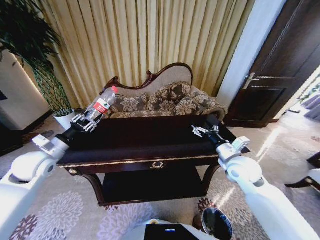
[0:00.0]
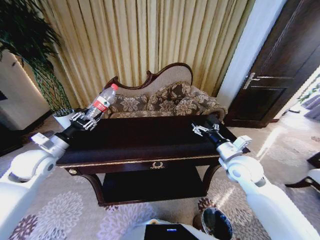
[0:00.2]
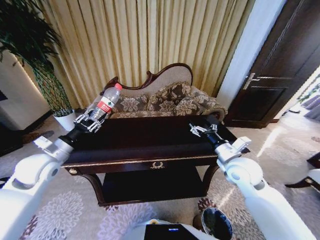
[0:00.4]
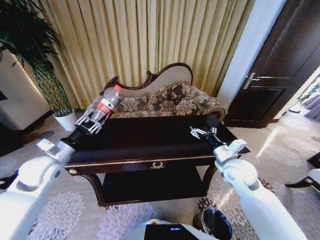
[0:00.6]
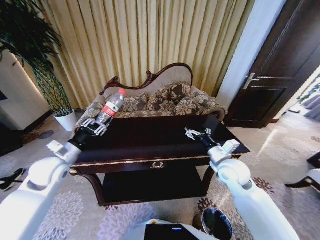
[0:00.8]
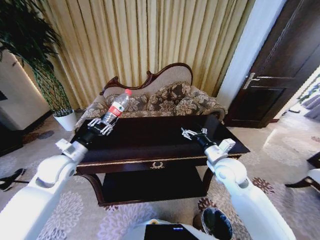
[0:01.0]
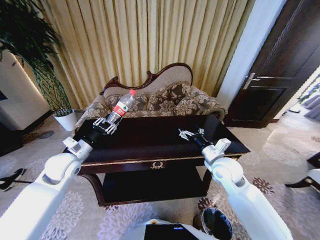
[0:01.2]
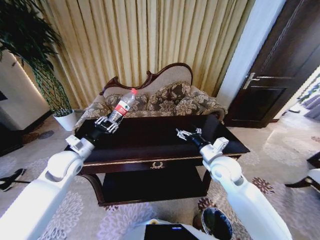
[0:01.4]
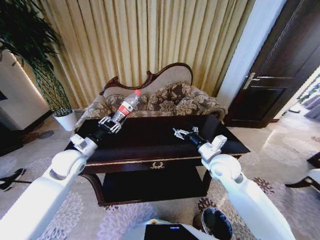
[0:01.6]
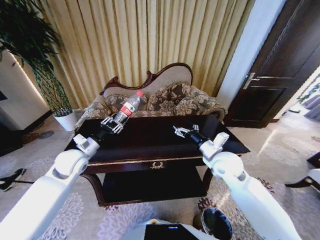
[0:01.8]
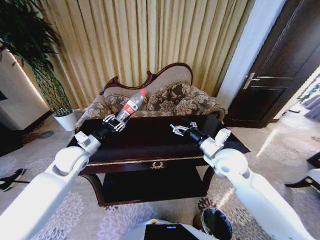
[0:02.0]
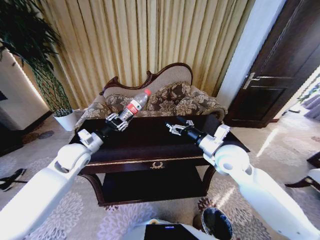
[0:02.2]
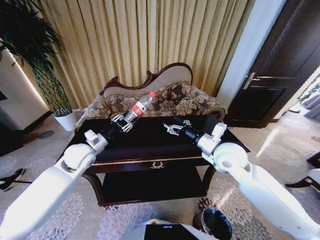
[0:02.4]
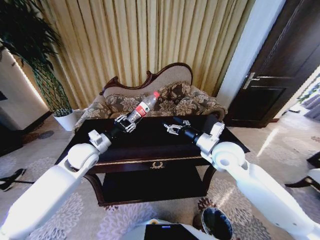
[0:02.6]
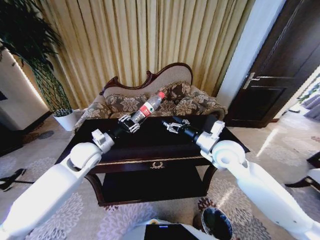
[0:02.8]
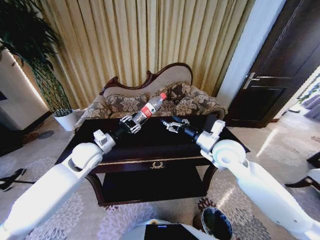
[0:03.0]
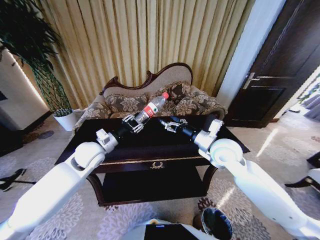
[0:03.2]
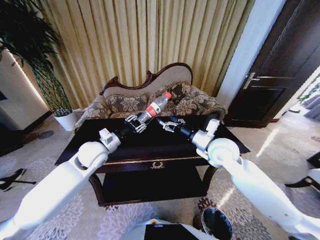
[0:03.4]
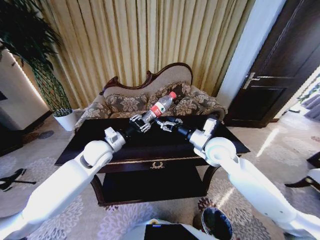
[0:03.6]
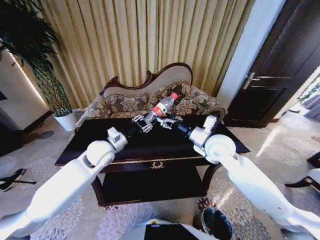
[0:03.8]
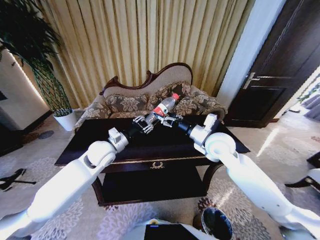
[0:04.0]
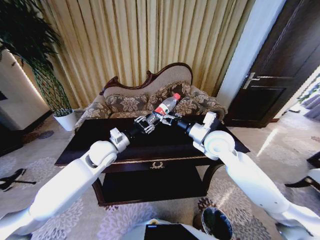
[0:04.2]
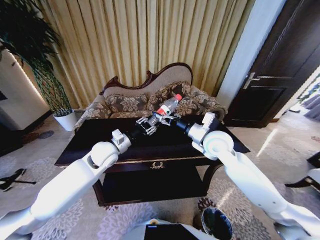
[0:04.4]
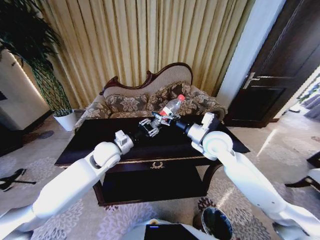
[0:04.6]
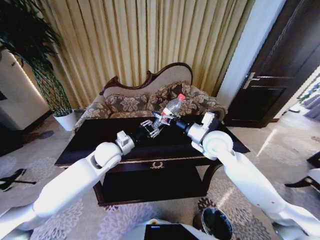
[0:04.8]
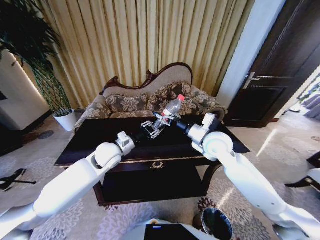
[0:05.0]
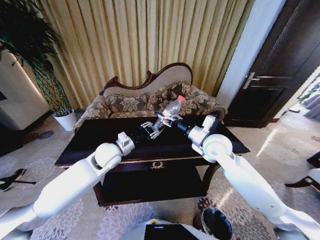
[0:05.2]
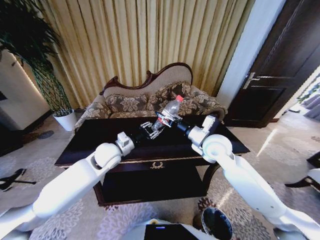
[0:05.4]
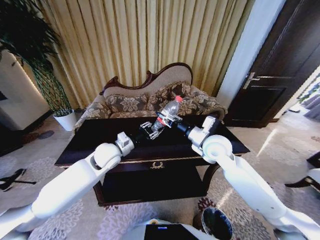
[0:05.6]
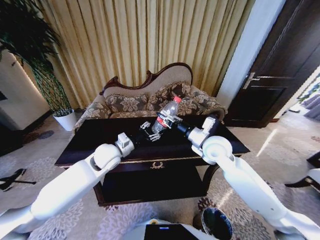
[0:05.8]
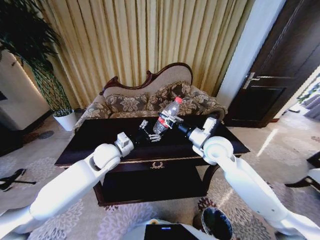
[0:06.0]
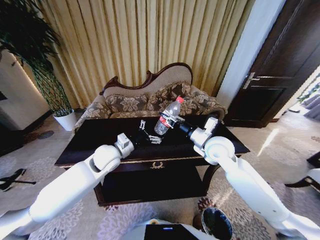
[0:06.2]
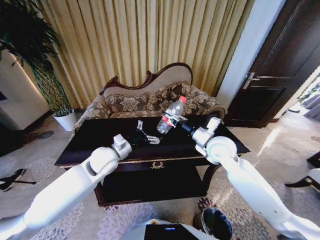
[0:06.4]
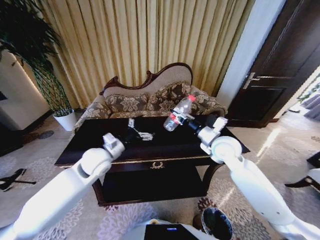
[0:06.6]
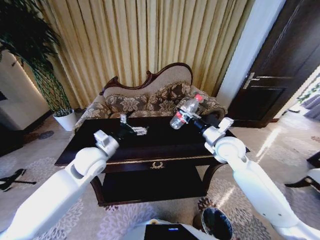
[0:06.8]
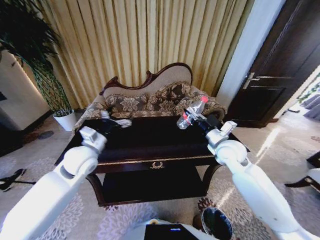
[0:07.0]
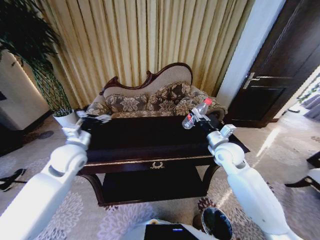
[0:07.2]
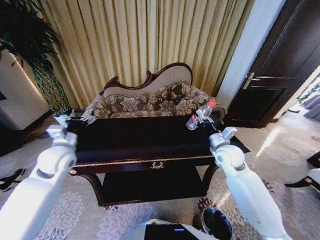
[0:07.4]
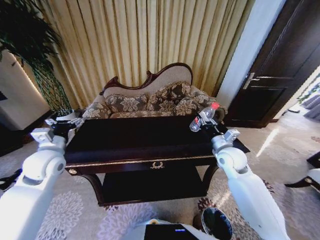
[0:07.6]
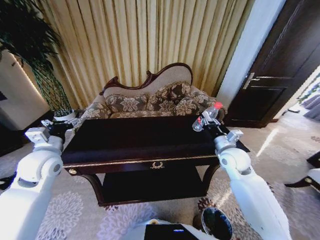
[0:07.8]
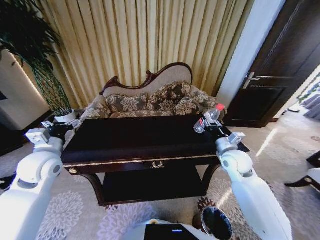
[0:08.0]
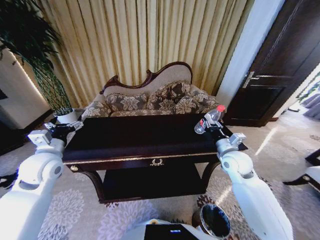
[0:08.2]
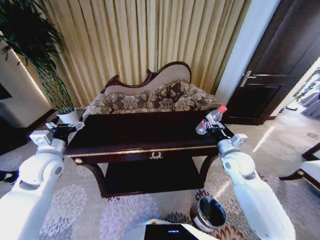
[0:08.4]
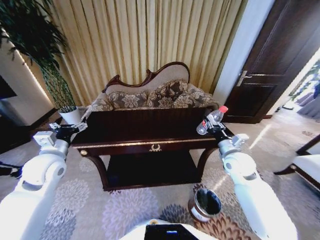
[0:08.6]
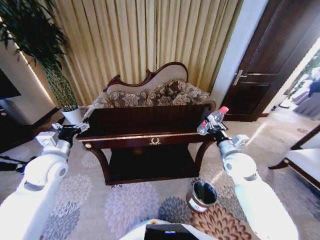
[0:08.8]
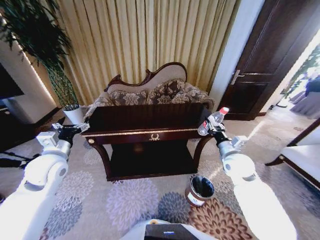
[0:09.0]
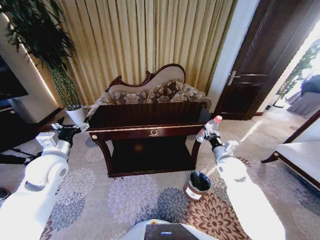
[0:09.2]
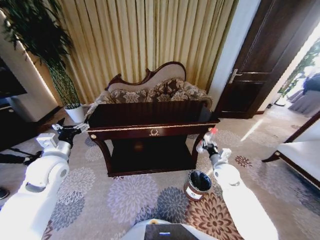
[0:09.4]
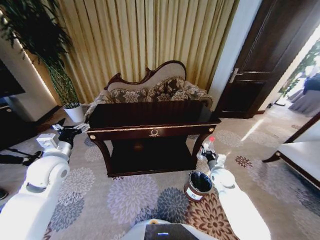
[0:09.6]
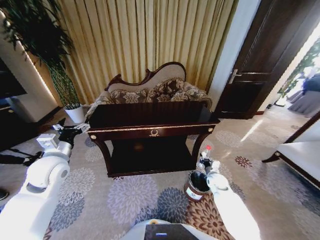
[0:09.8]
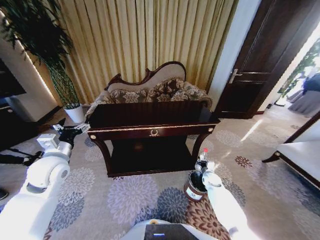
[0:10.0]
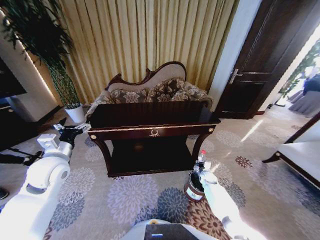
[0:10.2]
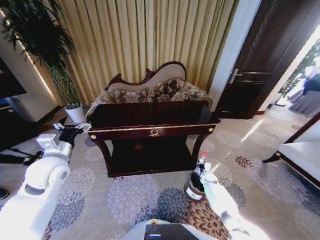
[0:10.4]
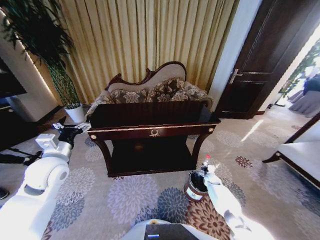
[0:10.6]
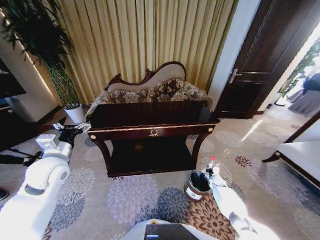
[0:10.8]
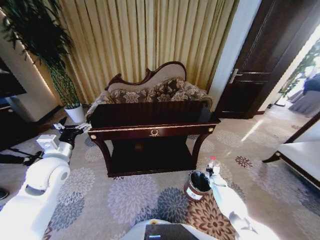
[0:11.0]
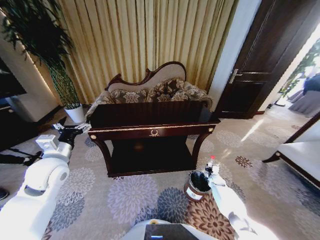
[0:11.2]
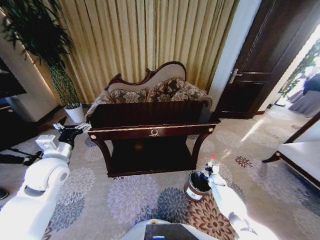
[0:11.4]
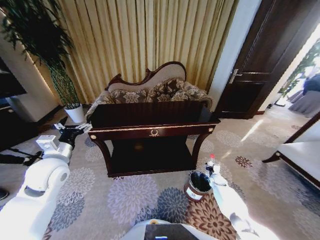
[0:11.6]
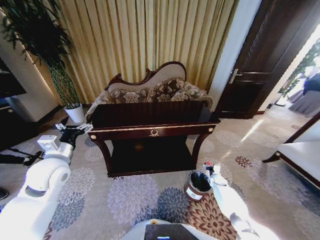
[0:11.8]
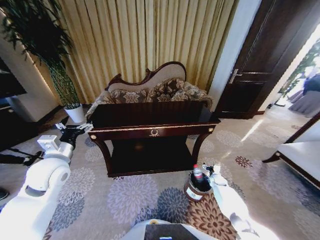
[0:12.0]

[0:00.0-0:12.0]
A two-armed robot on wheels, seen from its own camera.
Task of the whole recording: Move to the front of the table and place the trash on the table into the trash bin.
0:00.0 to 0:01.6: The right gripper travels to the left by some 5 cm, while the left gripper goes some 10 cm to the right.
0:01.6 to 0:03.0: The left gripper goes approximately 5 cm to the right. Meanwhile the right gripper moves upward, roughly 5 cm.
0:03.0 to 0:04.4: The left gripper goes roughly 5 cm to the right.
0:04.4 to 0:06.0: The right gripper closes its fingers, while the left gripper opens.
0:06.0 to 0:07.6: The left gripper goes some 20 cm to the left, while the right gripper travels to the right and downward by about 10 cm.
0:09.0 to 0:10.4: The right gripper moves downward, approximately 30 cm.
0:10.4 to 0:12.0: The right gripper goes roughly 5 cm to the right, and opens its fingers.

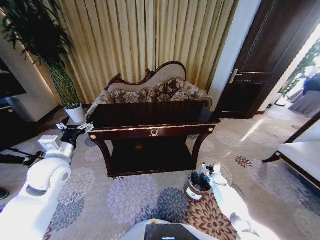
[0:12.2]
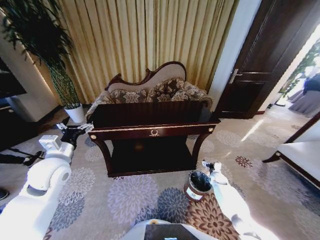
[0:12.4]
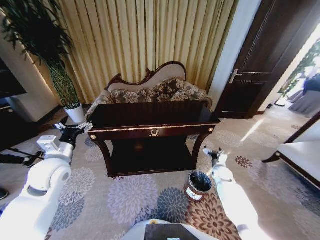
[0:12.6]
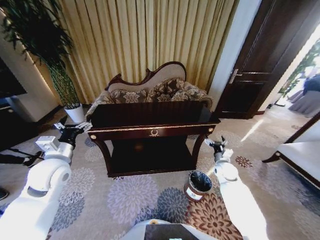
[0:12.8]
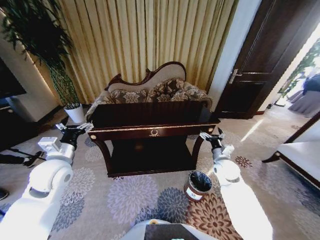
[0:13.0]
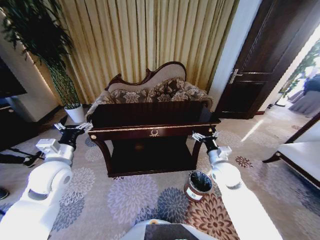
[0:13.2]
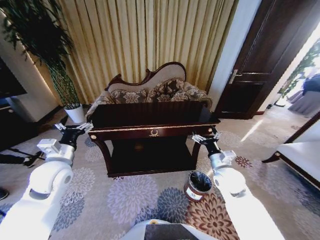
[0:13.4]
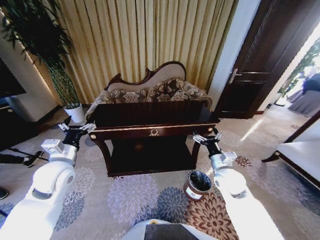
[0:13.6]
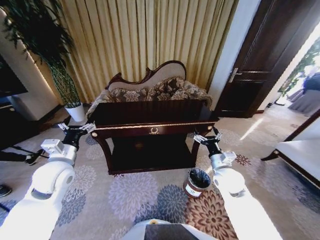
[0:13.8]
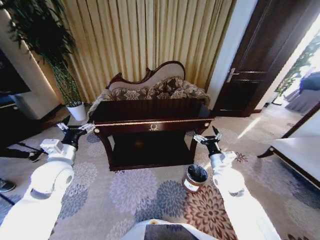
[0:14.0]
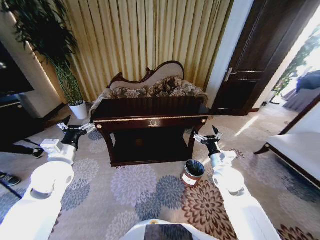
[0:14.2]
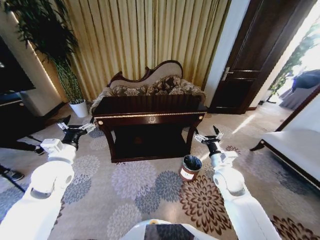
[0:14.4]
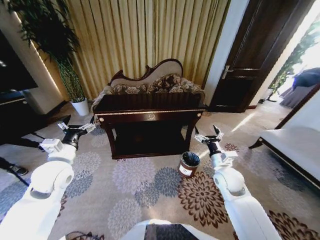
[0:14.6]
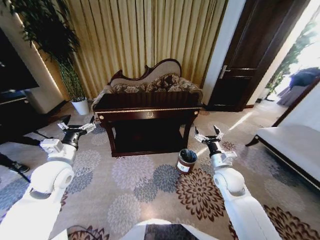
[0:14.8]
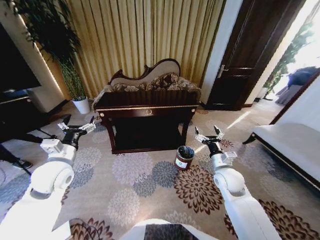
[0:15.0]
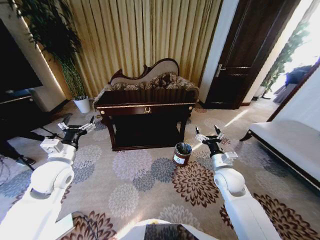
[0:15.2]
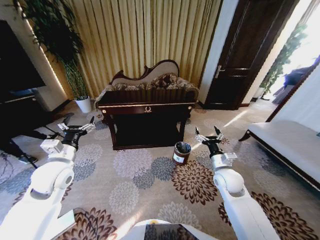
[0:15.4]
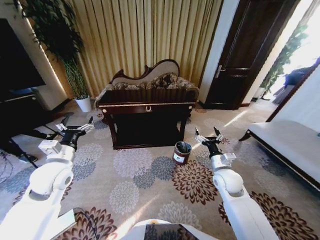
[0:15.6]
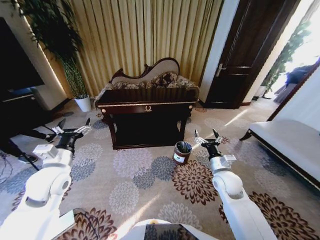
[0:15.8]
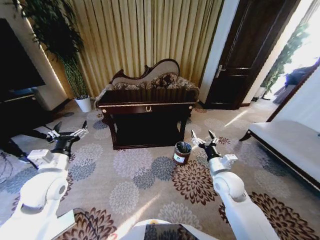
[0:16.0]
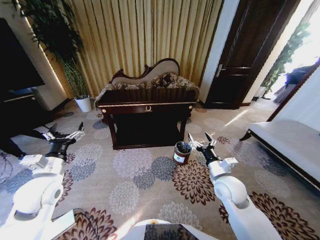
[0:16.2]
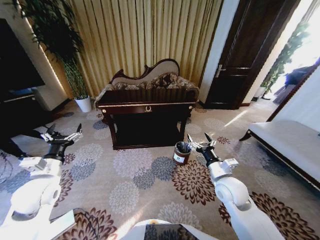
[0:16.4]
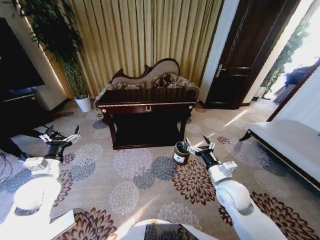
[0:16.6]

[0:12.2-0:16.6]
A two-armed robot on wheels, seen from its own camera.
Task of the whole recording: Move to the front of the table and place the trash on the table into the trash bin.
0:12.2 to 0:13.6: The right gripper heads upward and to the left, covering some 30 cm.
0:15.2 to 0:16.6: The left gripper travels to the left by roughly 5 cm. Meanwhile the right gripper heads backward, covering approximately 5 cm.

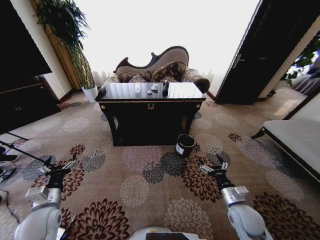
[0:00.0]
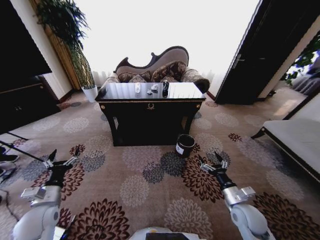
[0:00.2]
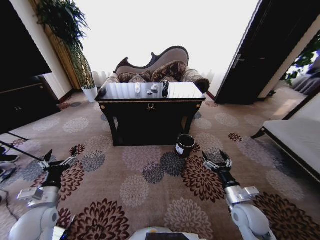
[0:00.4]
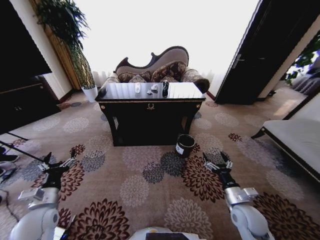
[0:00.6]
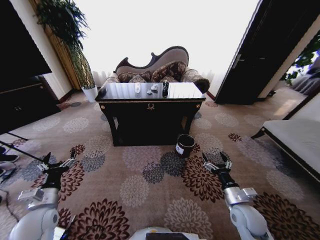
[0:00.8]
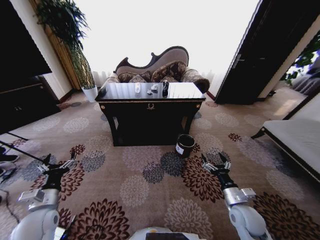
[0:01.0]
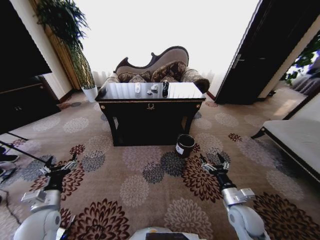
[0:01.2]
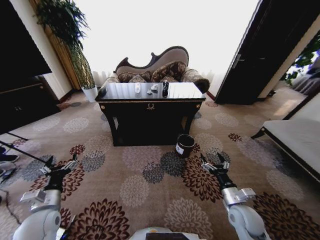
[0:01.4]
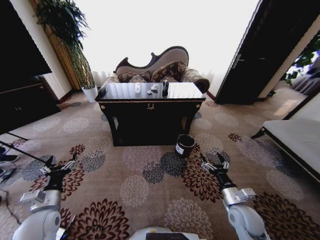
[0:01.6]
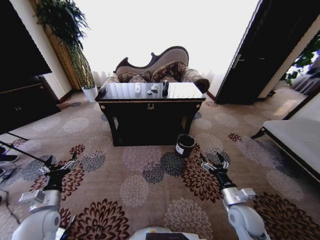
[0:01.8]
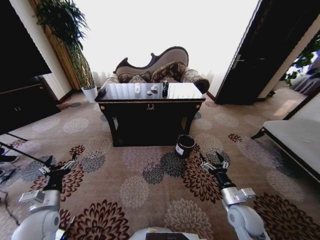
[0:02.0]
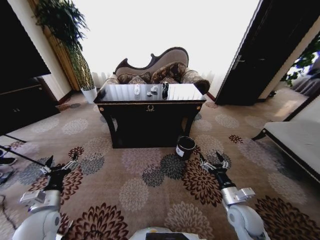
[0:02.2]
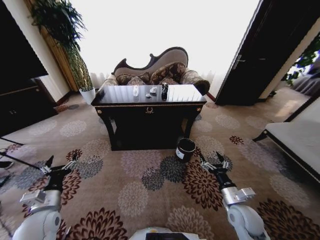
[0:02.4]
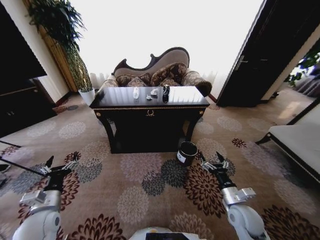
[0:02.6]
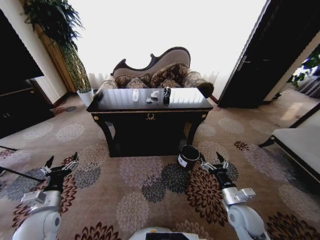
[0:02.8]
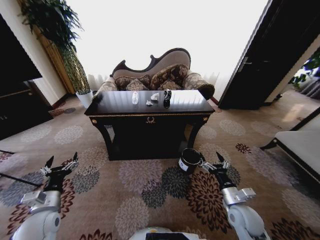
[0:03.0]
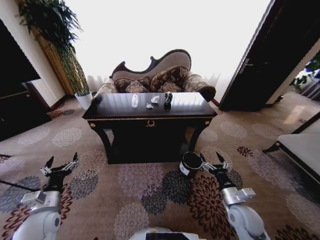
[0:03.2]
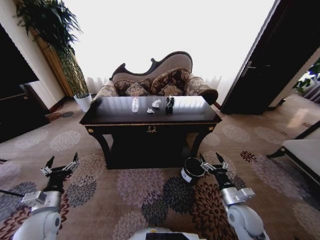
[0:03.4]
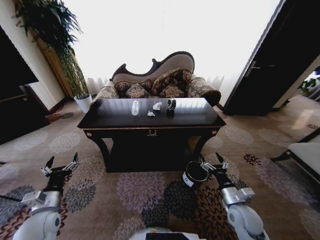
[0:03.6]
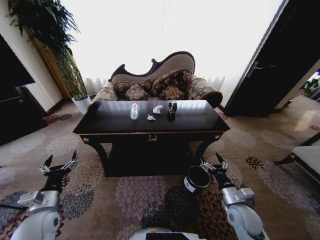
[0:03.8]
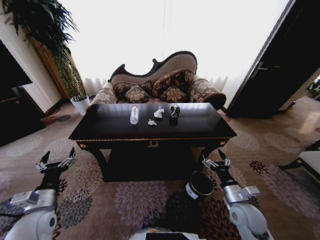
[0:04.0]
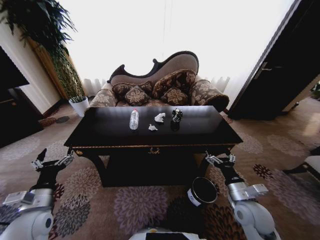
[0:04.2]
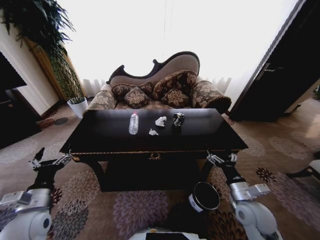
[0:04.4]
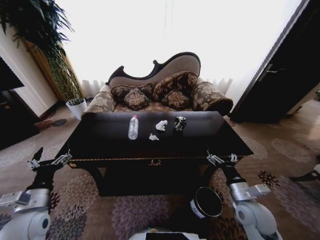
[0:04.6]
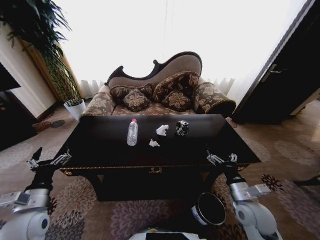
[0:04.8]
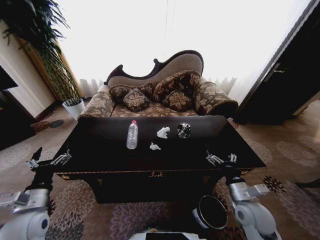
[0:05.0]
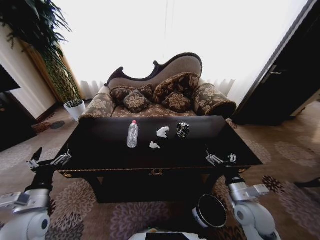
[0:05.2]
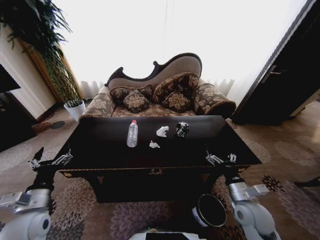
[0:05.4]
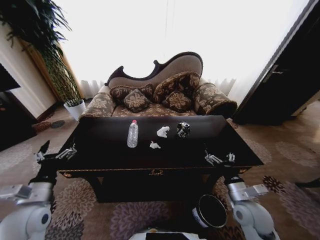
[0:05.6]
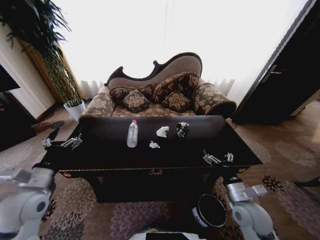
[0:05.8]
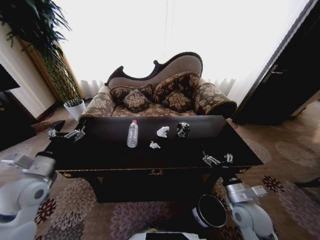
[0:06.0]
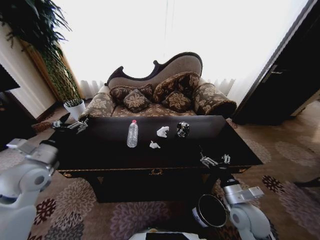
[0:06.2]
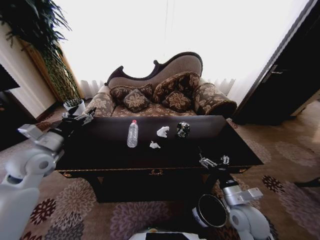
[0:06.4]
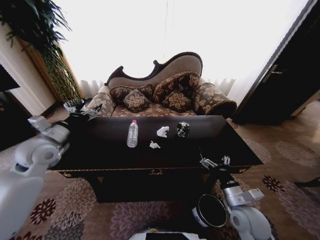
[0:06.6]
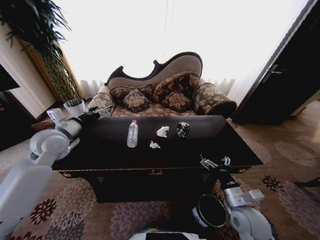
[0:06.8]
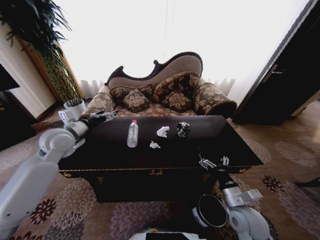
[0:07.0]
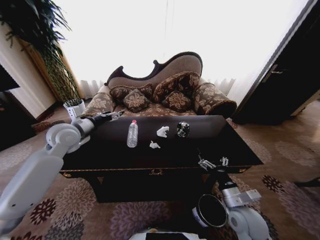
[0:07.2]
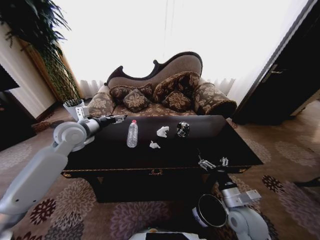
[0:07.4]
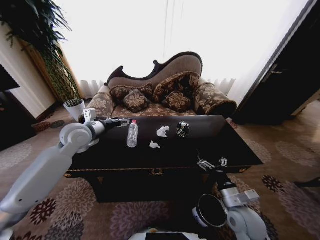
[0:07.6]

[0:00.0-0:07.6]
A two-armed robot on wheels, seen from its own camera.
Task of the whole recording: Move to the front of the table and place the trash on the table into the trash bin.
0:04.6 to 0:06.0: The left gripper shifts roughly 10 cm upward and forward.
0:06.0 to 0:07.6: The left gripper heads forward and to the right, covering roughly 20 cm.
